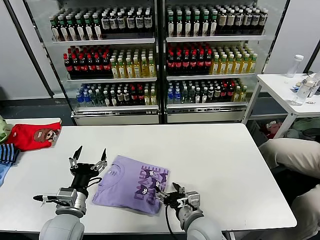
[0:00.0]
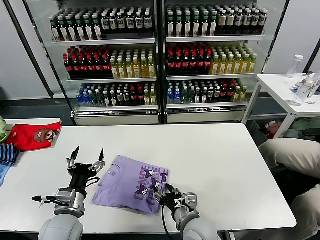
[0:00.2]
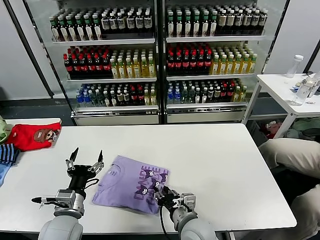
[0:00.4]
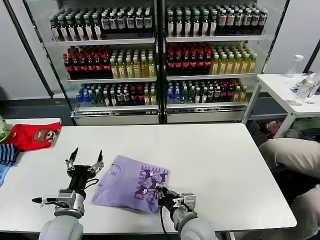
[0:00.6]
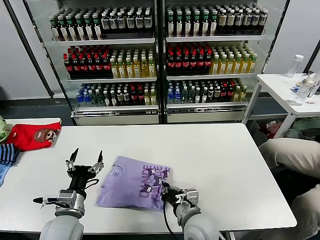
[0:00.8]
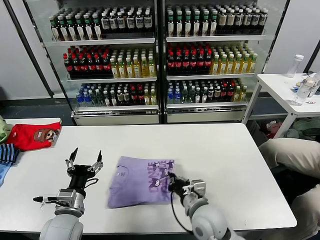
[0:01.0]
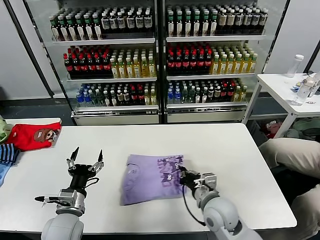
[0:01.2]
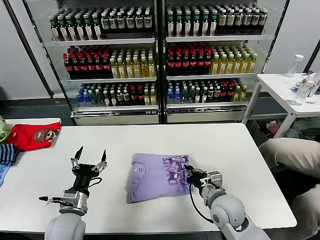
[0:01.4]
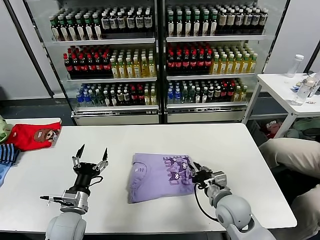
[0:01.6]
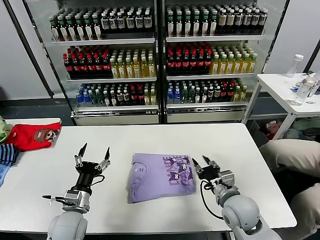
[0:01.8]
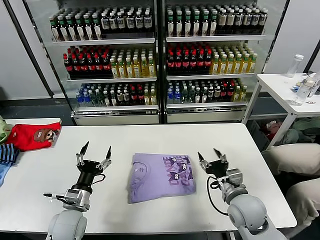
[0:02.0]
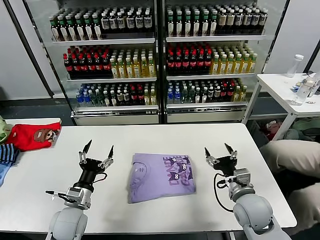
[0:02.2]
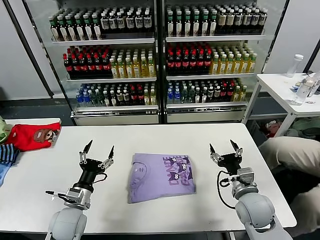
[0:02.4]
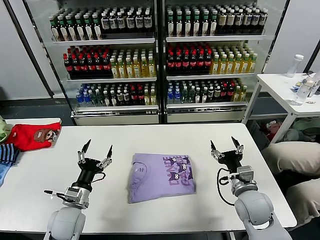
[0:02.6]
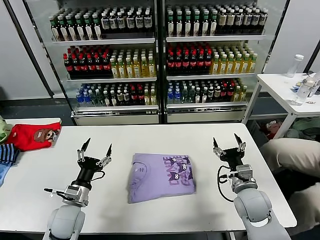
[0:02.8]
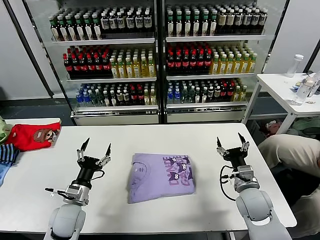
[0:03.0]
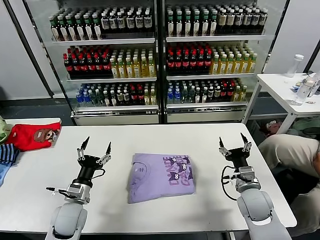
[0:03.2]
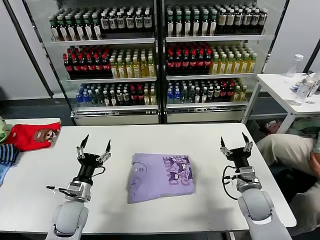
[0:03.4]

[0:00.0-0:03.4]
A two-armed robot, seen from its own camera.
Task of the whole recording: fold and organize the clothes.
Step, 0:00.0 to 0:01.6: Drag the clothes to the center of the table.
0:00.0 to 0:01.6: The left gripper moves approximately 5 cm; the right gripper goes approximately 10 cm to the right and forward, and closes up.
0:01.6 to 0:03.4: The right gripper is displaced to the right by approximately 10 cm, and opens.
